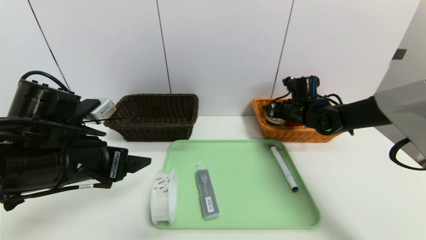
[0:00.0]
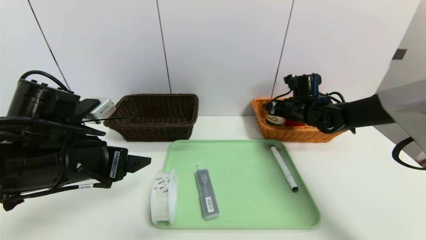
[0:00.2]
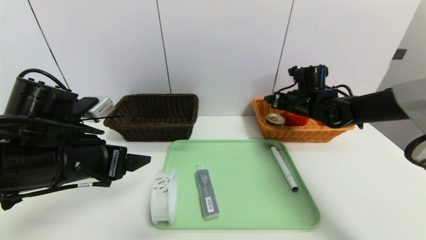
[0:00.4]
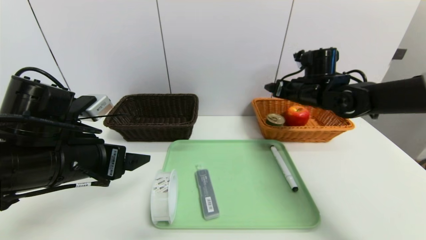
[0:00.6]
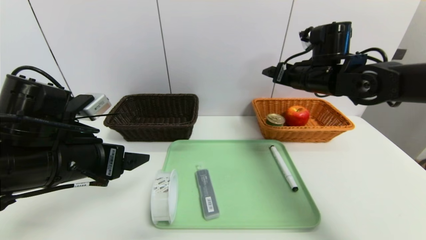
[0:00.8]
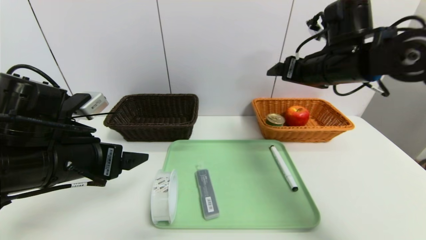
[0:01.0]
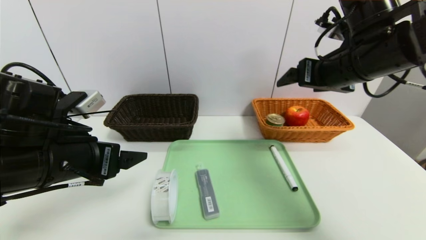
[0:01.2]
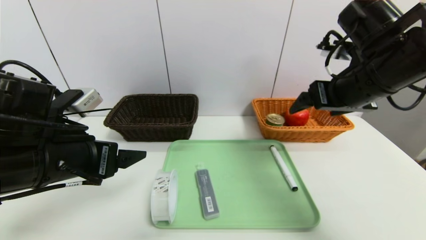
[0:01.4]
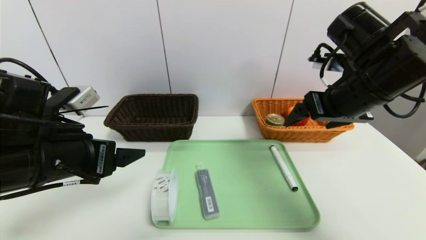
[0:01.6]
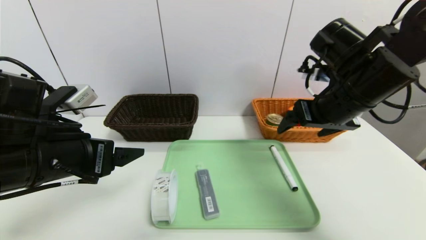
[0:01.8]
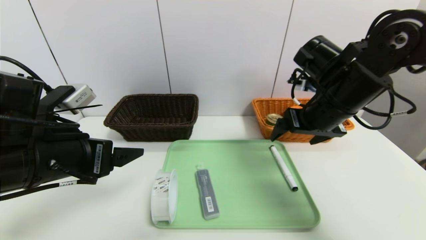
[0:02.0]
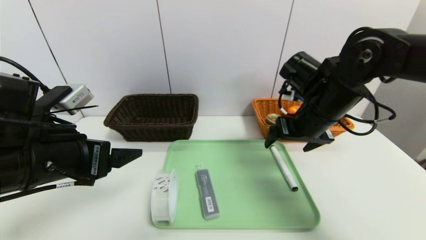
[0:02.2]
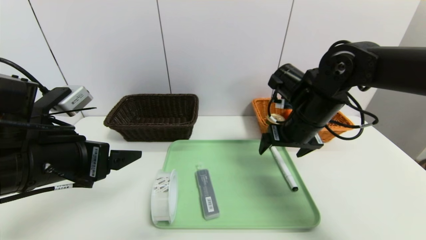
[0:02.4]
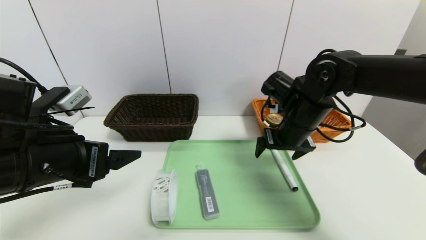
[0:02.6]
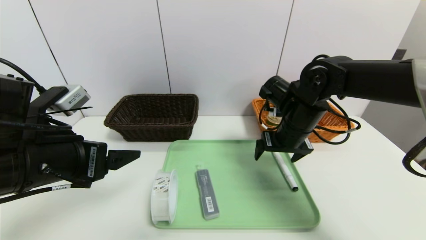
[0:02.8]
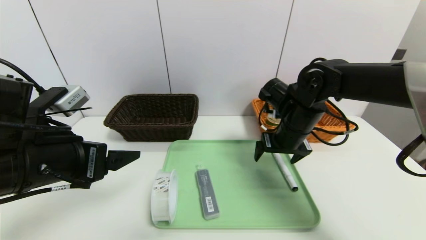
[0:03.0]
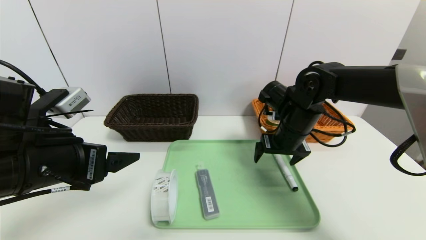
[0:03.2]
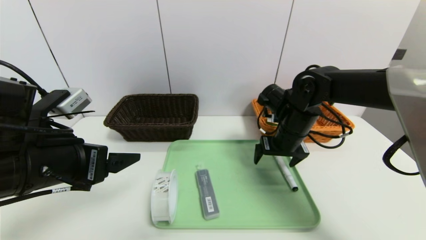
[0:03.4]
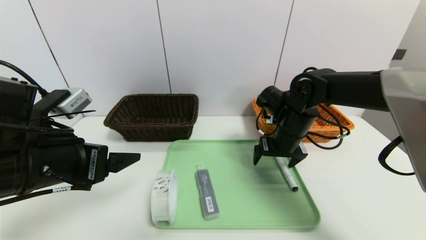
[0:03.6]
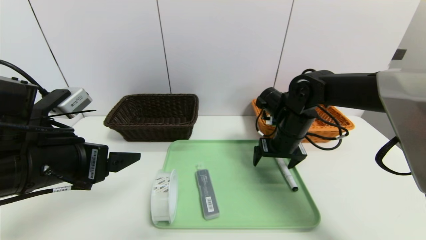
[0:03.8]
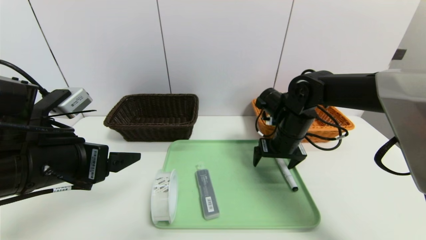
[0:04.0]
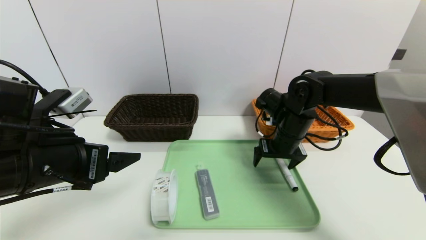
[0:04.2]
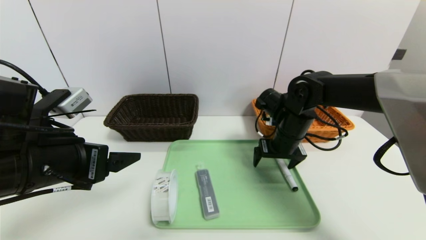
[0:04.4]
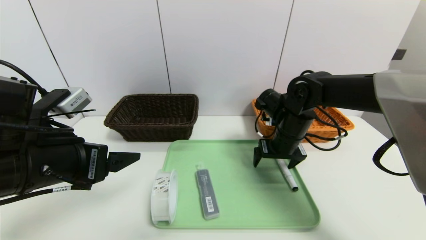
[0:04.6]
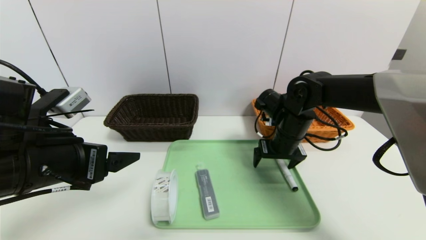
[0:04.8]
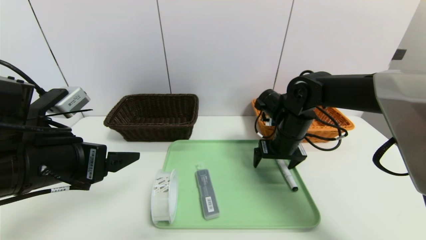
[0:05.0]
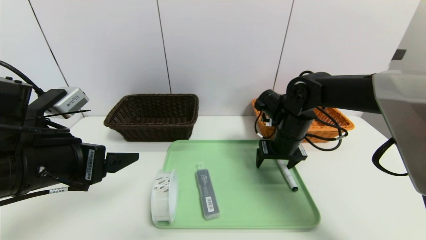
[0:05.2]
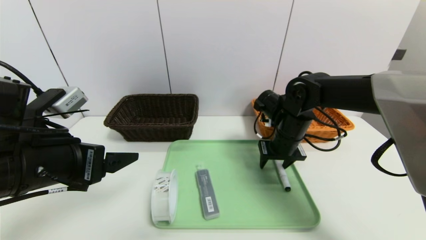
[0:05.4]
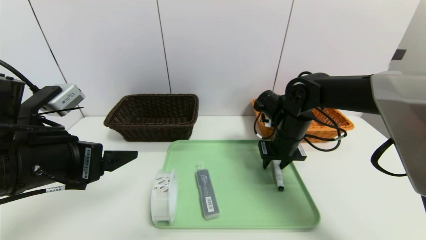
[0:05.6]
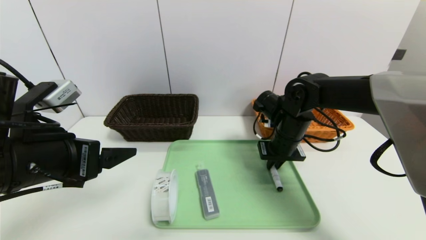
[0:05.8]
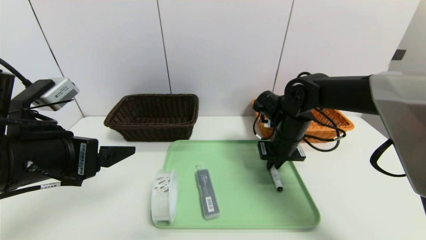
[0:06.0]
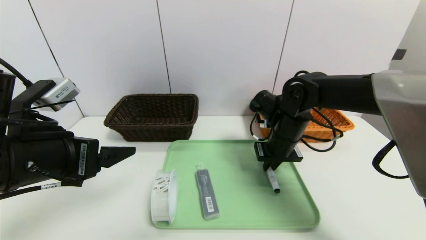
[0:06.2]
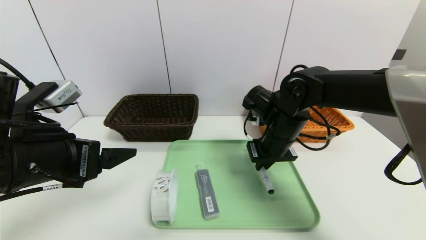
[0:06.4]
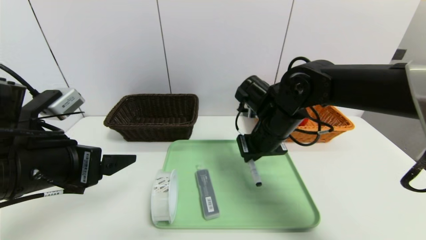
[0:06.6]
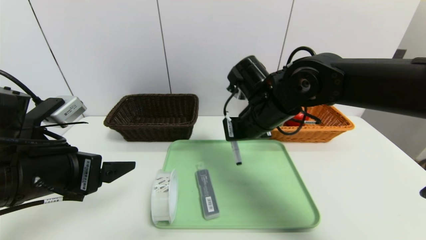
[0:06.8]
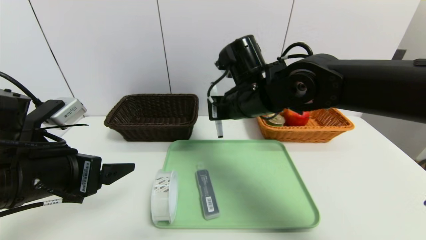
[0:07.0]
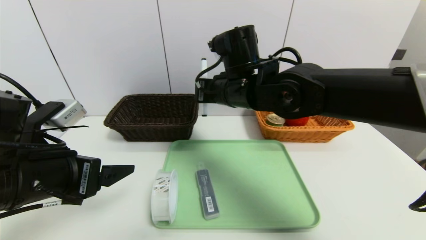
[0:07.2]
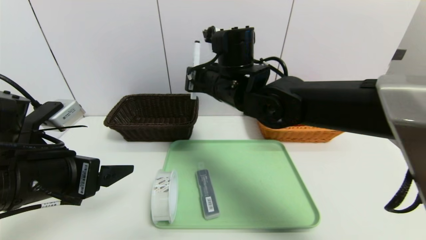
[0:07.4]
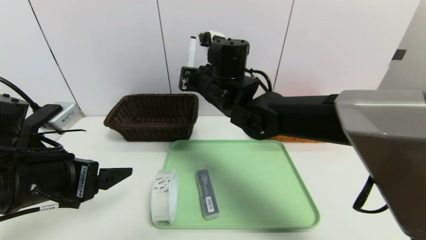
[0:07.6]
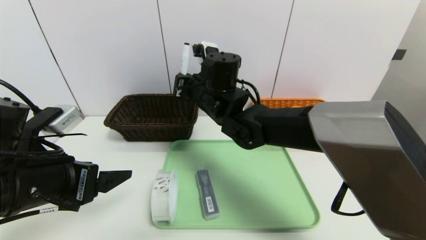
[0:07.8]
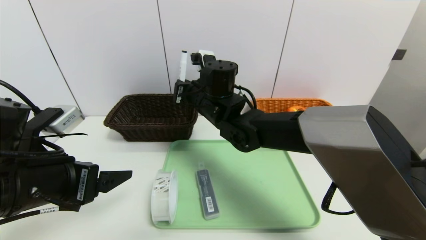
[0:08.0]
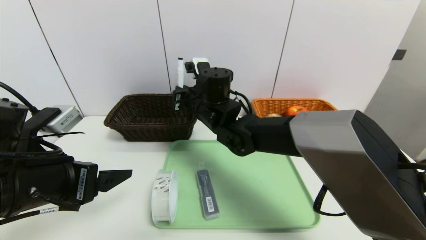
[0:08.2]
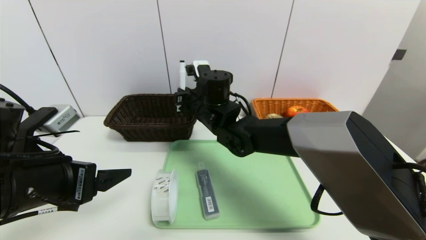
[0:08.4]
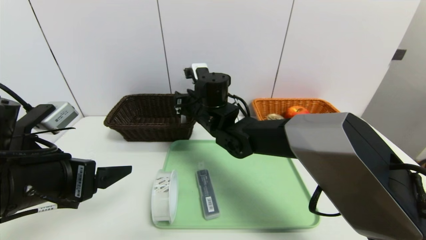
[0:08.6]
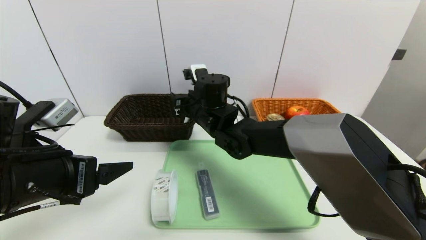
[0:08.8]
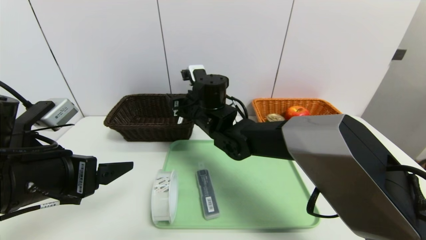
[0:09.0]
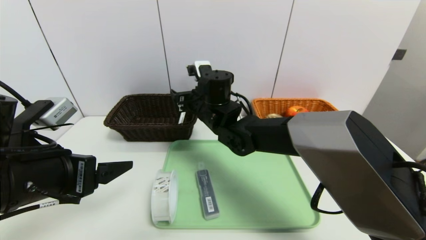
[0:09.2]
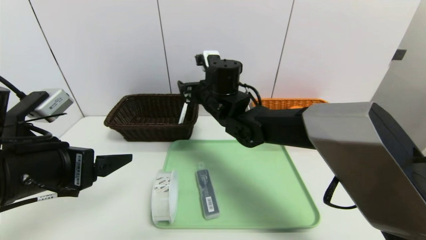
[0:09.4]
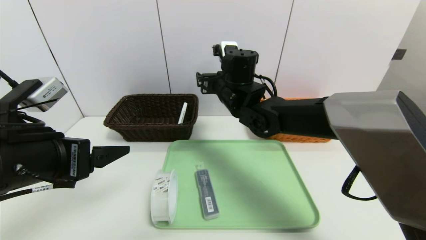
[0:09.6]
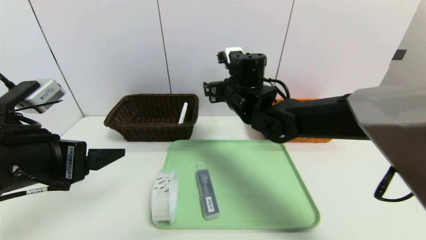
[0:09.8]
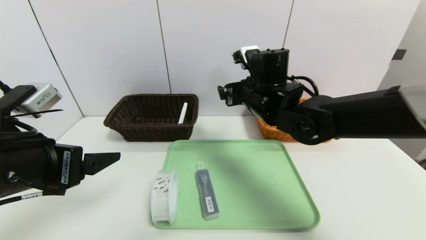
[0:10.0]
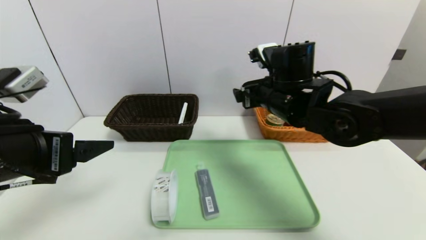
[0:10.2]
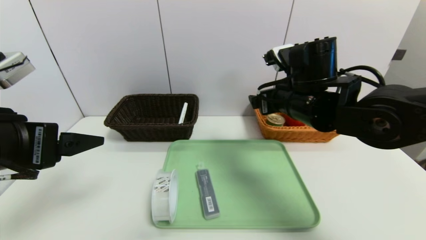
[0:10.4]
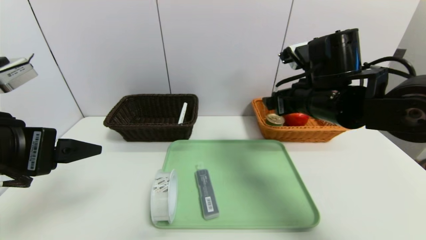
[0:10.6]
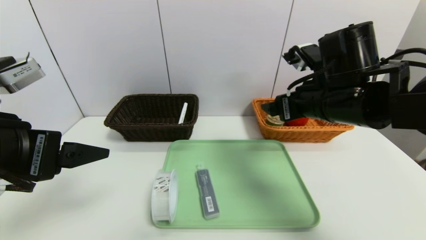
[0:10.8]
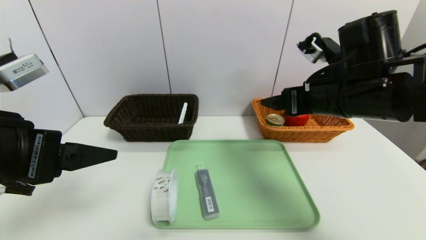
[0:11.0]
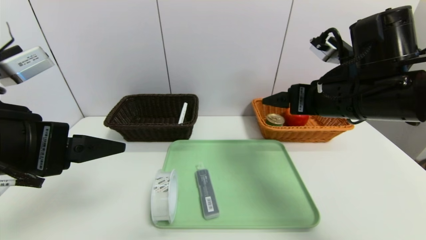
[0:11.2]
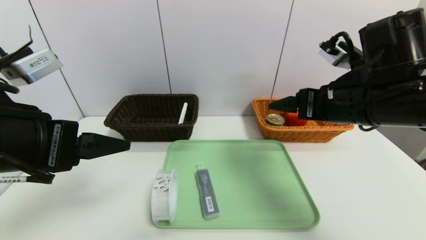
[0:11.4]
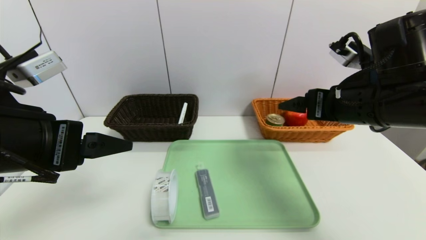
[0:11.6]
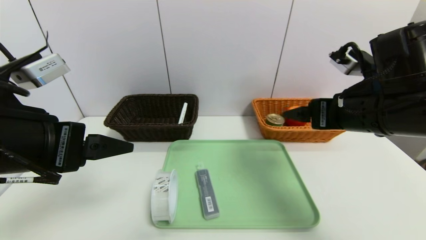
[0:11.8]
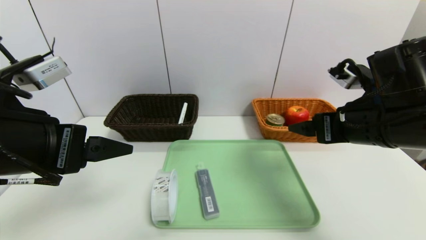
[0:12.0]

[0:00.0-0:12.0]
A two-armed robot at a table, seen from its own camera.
Task of the whole recording: place the food in the right basket with the right gripper, and place the non food items in the left basket with the left gripper.
0:00.0 to 0:01.6: The right gripper shifts about 25 cm backward and upward.
0:01.6 to 0:03.0: The right gripper moves downward and forward, some 15 cm.
0:03.0 to 0:04.4: There are only small adjustments of the grippers.
0:04.4 to 0:06.0: The right gripper closes up.
0:06.0 to 0:07.6: The right gripper is displaced to the left and upward by approximately 20 cm.
0:07.6 to 0:09.0: The right gripper goes about 5 cm downward, and opens.
0:09.0 to 0:10.4: The left gripper shifts some 5 cm upward; the right gripper goes some 20 cm to the right and backward.
0:10.4 to 0:12.0: The right gripper goes roughly 10 cm to the right and backward.

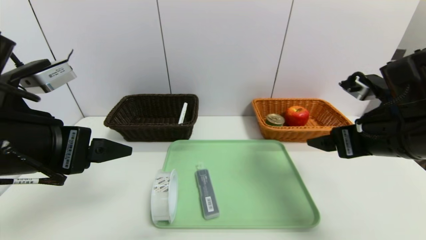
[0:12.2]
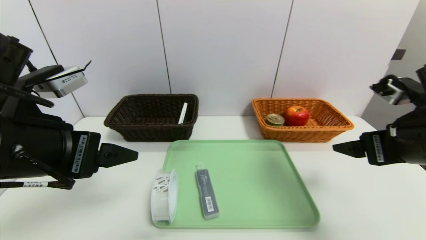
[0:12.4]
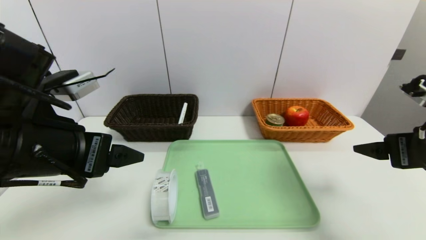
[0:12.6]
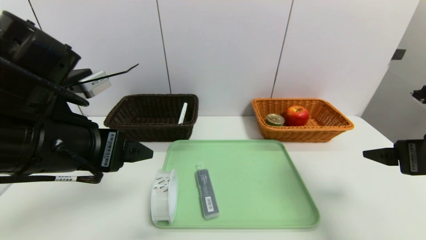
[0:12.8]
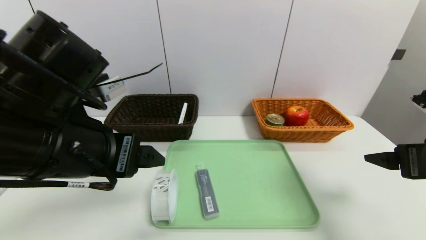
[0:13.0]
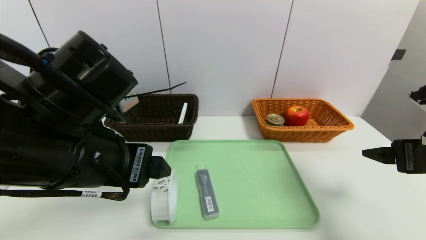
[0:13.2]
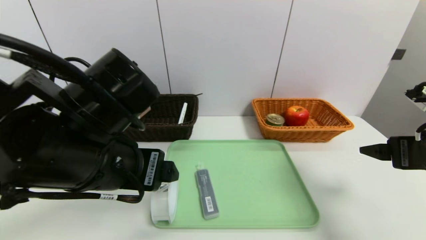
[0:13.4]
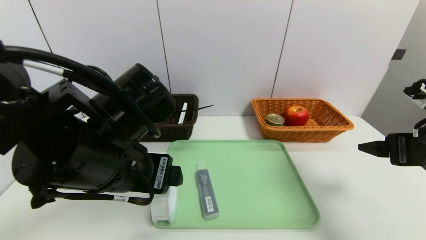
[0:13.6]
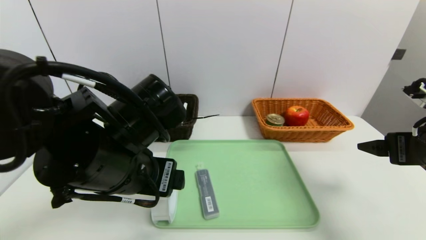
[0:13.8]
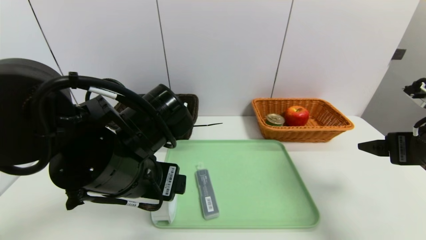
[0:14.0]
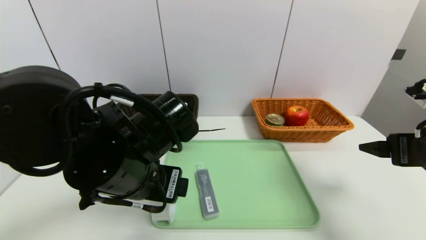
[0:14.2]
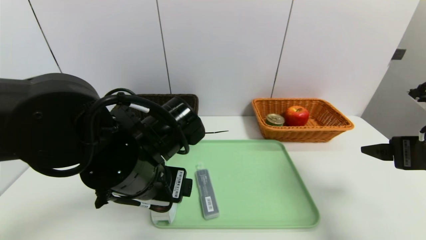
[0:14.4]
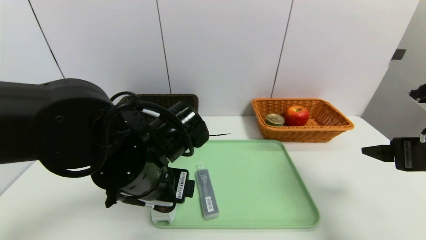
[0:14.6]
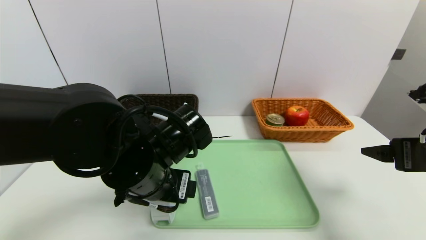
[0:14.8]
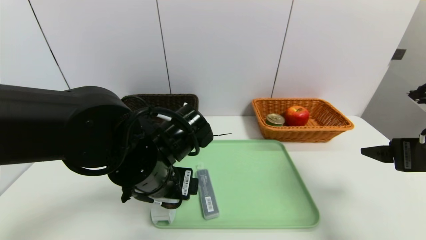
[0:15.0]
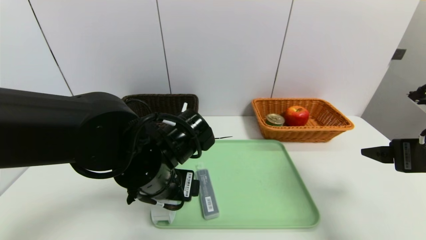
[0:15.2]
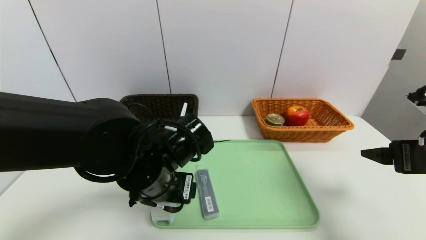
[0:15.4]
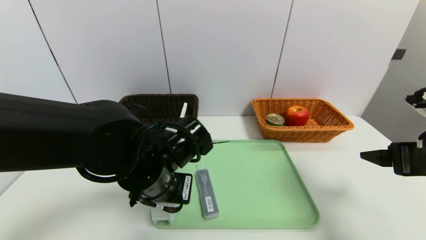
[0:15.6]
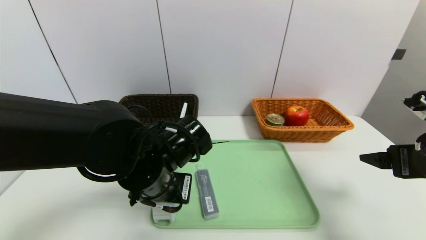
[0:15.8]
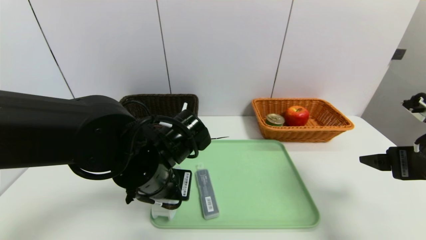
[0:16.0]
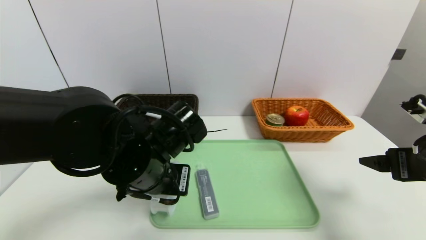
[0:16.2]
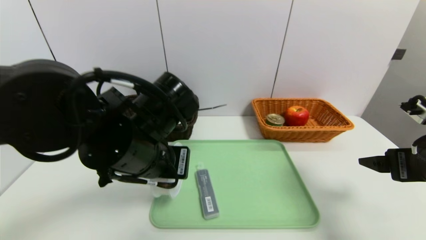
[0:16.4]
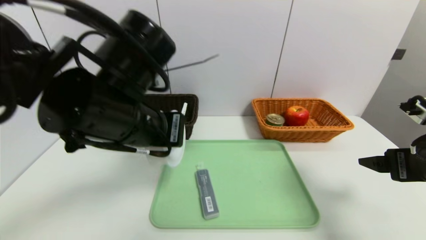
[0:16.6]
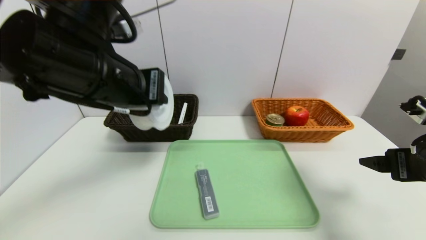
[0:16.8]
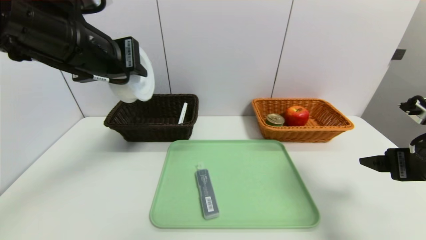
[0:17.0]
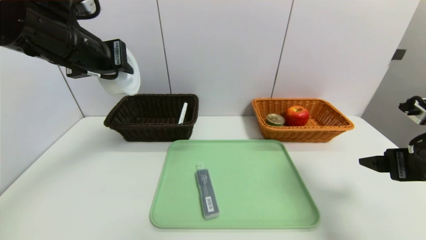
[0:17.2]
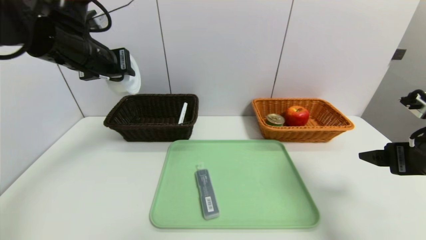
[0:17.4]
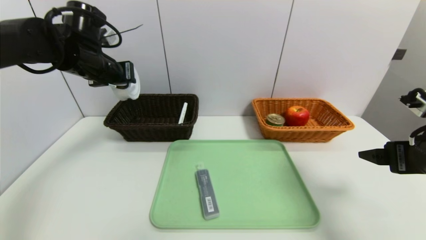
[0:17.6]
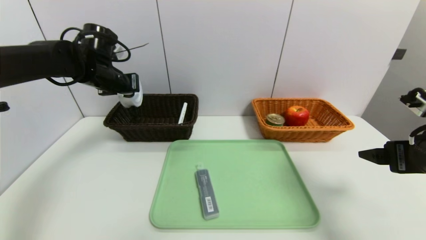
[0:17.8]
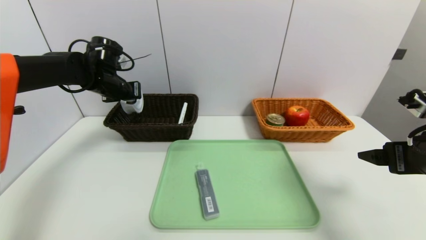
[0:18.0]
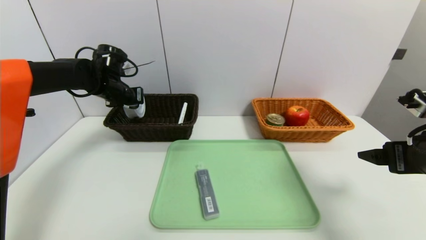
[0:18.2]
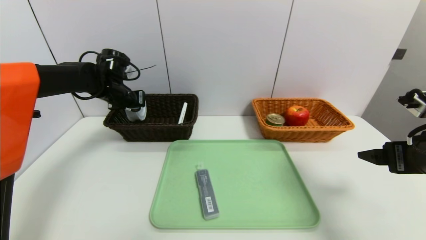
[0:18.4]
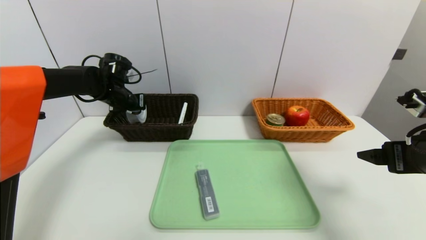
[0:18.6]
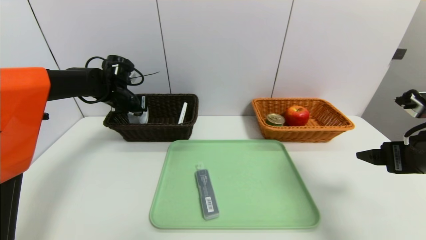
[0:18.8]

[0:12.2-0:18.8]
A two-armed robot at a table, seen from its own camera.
Task of the whole recording: place the food in the right basket with the right gripper, and place the non food items in the left basket with the left gripper.
0:12.2 to 0:13.8: The right gripper shifts about 5 cm to the right, while the left gripper is displaced to the right and downward by some 10 cm.
0:13.8 to 0:15.4: The left gripper is displaced downward by roughly 5 cm.
0:15.4 to 0:17.2: The left gripper goes roughly 20 cm upward and to the left, and closes its fingers.
0:17.2 to 0:18.8: The left gripper moves forward and downward, roughly 25 cm.
